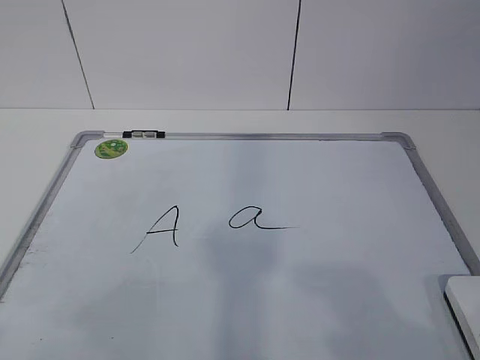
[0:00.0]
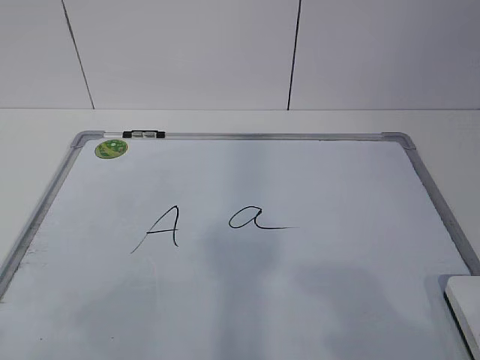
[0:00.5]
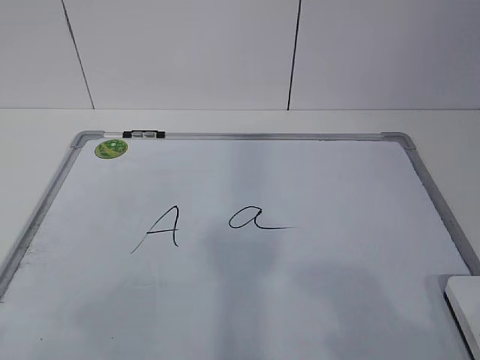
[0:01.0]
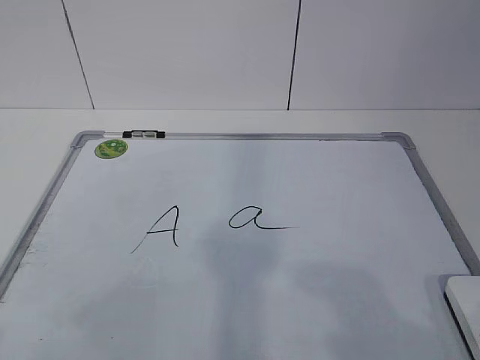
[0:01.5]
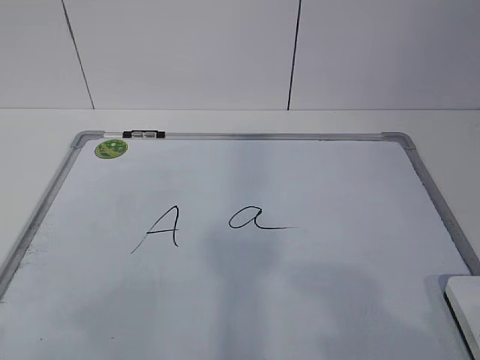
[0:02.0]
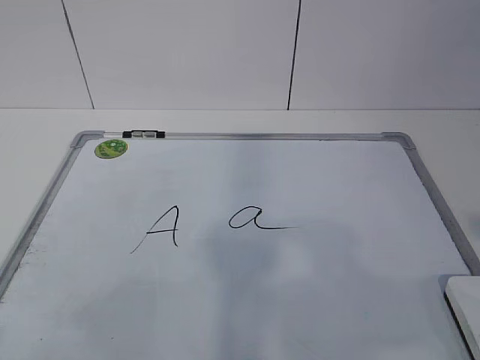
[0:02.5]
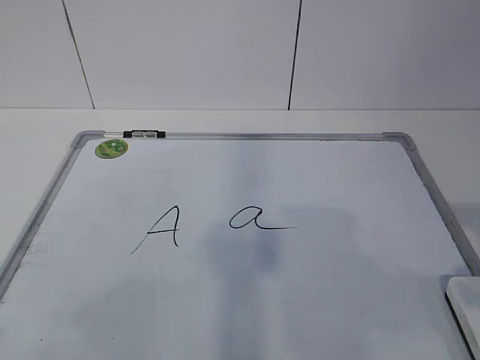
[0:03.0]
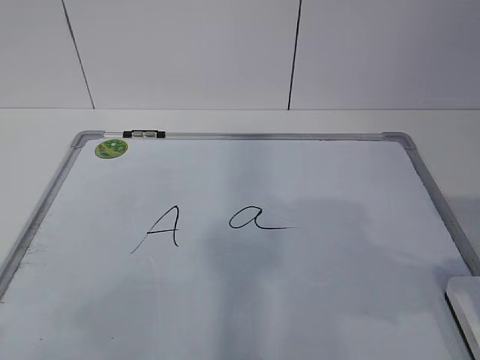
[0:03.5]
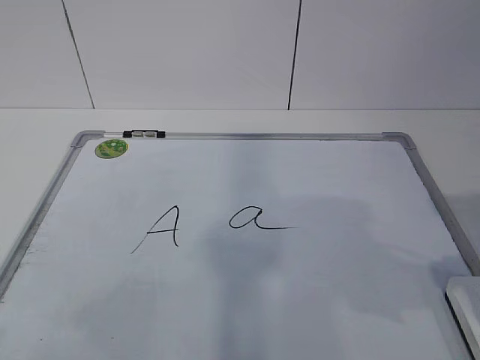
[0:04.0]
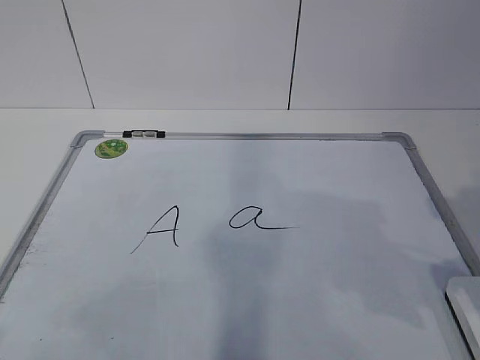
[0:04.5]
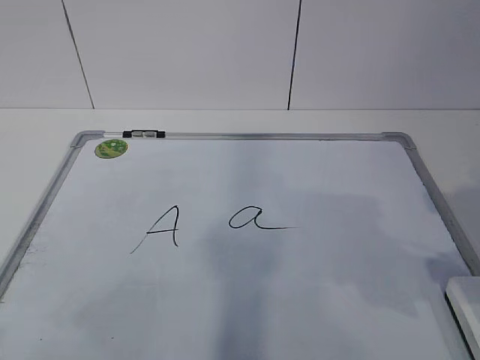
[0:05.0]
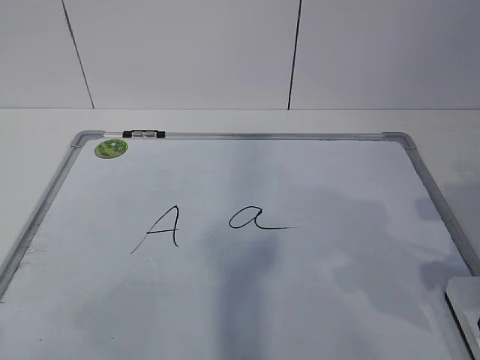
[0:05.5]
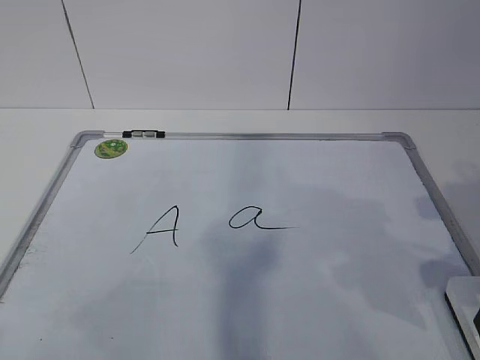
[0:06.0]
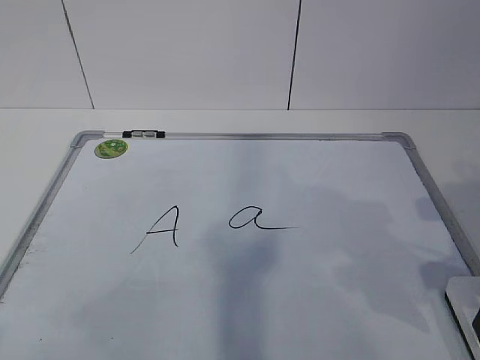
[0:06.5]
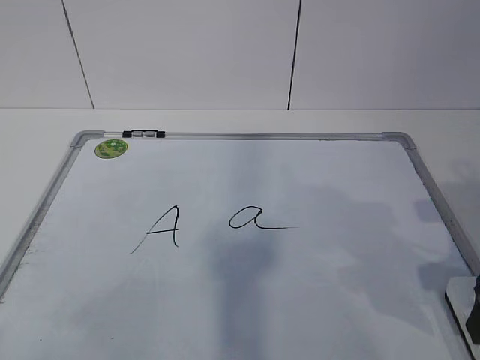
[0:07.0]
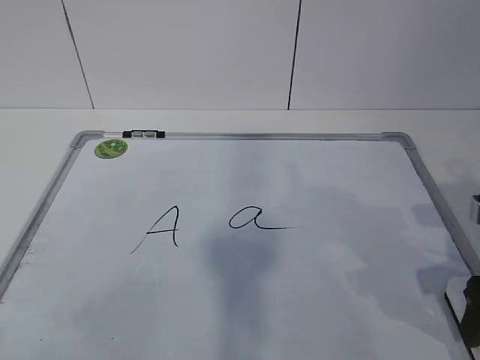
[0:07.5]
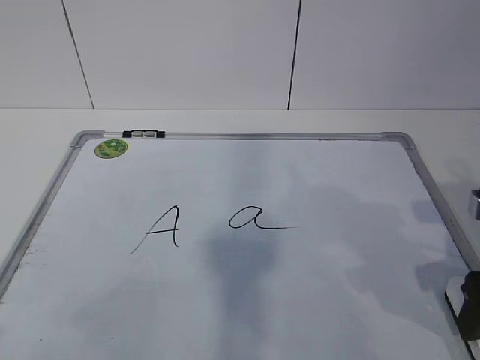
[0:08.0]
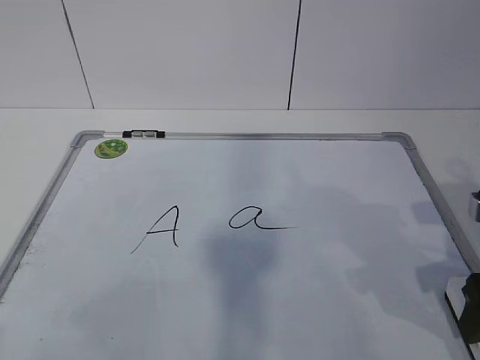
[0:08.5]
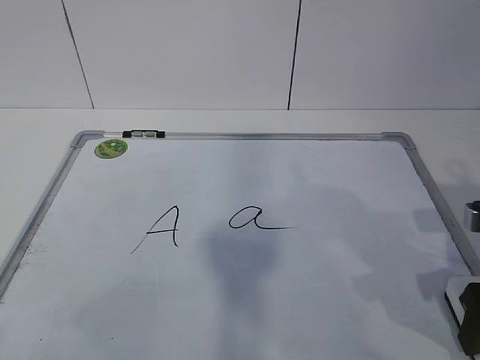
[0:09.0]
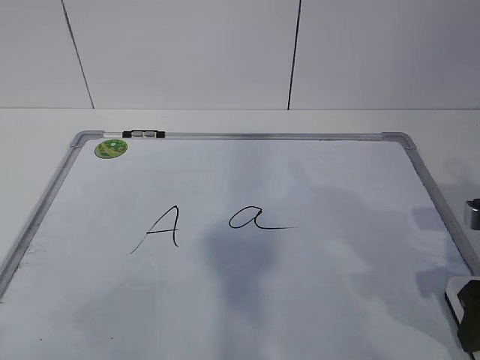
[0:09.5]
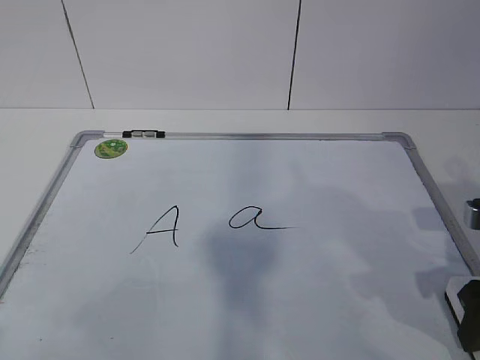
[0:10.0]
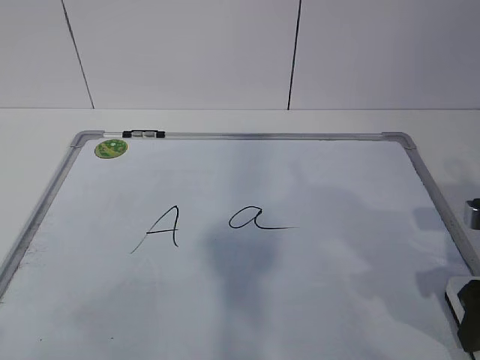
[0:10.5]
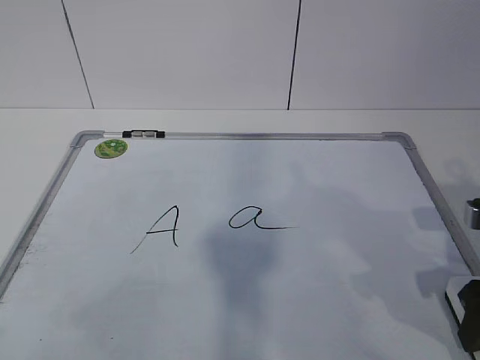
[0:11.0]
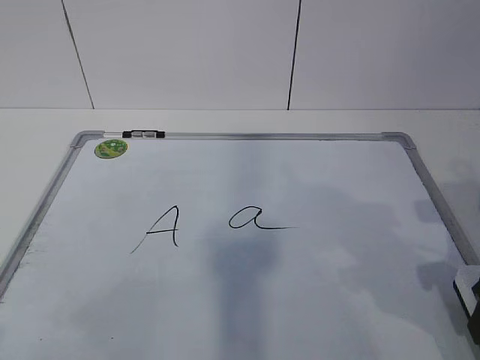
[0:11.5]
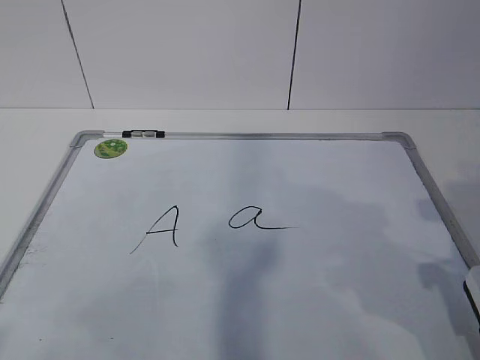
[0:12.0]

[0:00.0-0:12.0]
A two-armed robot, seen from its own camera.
Task of the whole recording: pick up the eraser on the blackboard and erase the letter "a".
0:02.0 to 0:04.0: The right gripper is displaced forward by some 15 cm.
0:10.0 to 0:12.0: The right gripper moves about 5 cm.

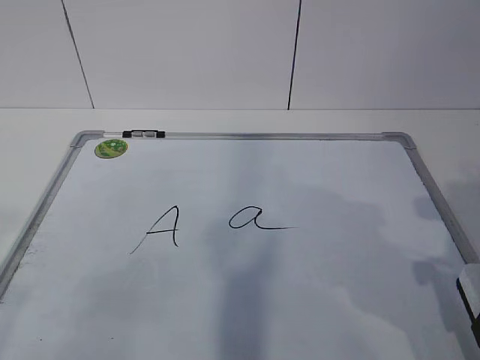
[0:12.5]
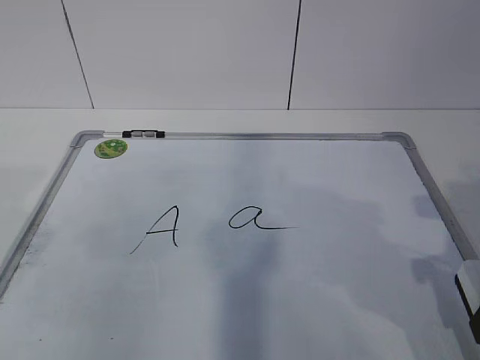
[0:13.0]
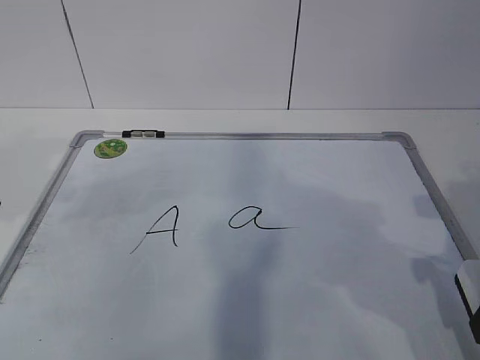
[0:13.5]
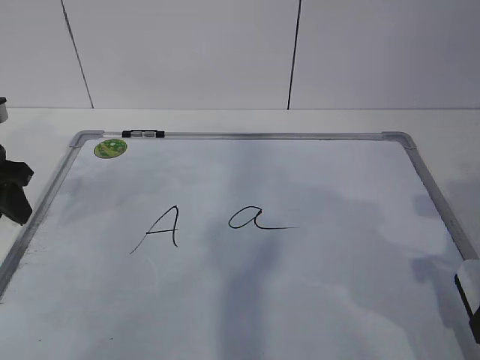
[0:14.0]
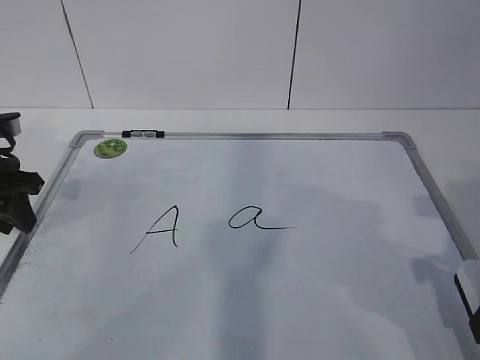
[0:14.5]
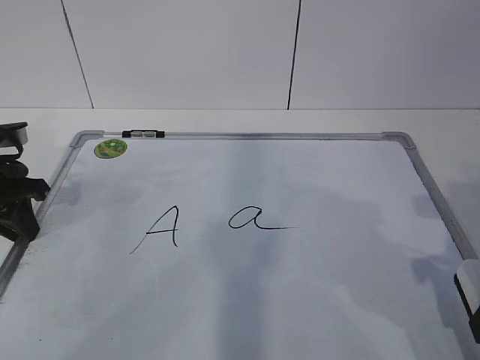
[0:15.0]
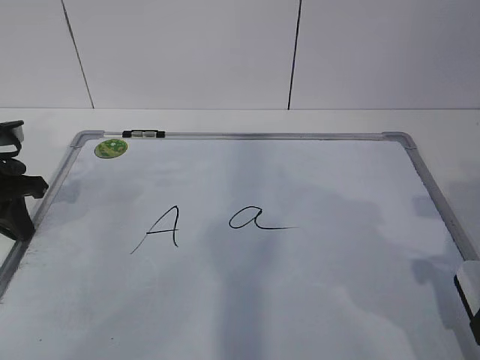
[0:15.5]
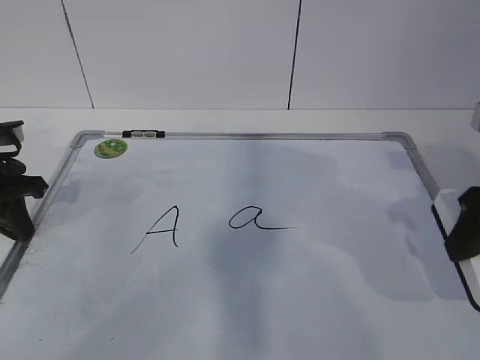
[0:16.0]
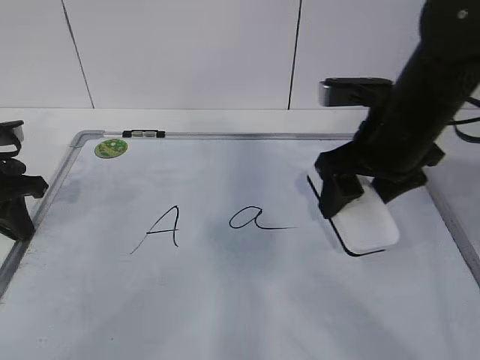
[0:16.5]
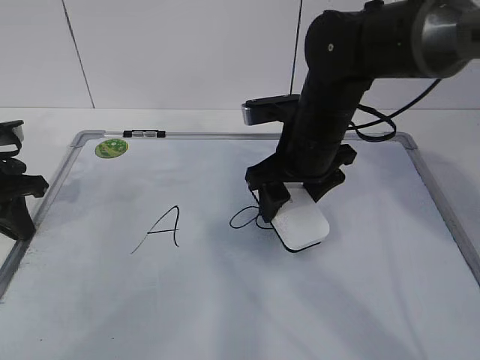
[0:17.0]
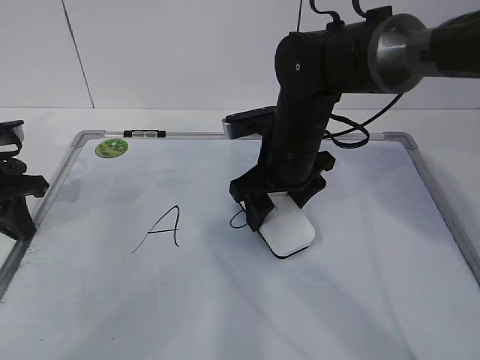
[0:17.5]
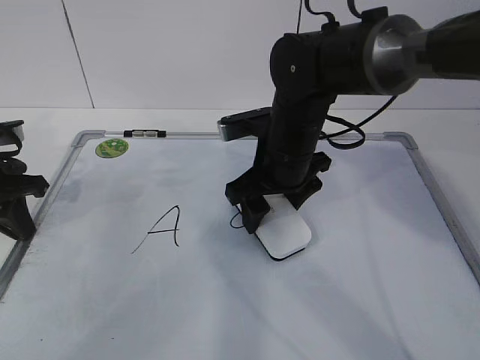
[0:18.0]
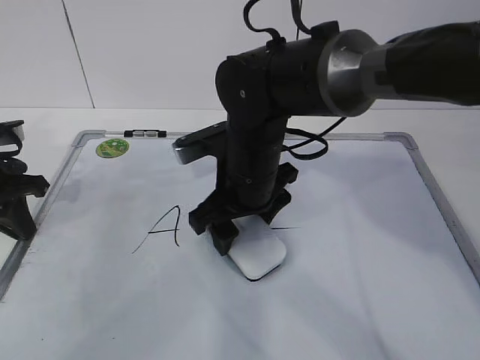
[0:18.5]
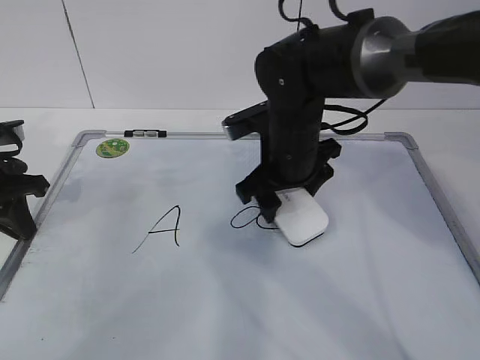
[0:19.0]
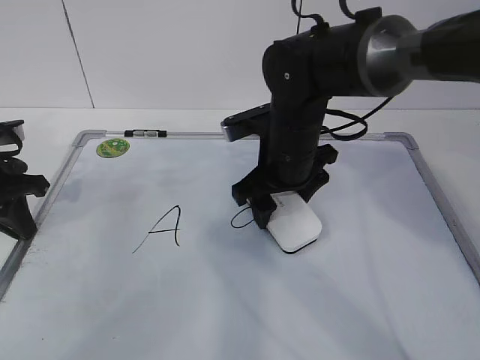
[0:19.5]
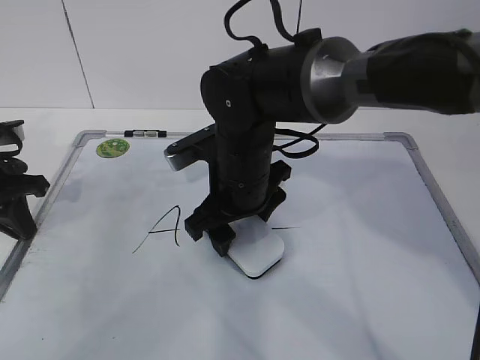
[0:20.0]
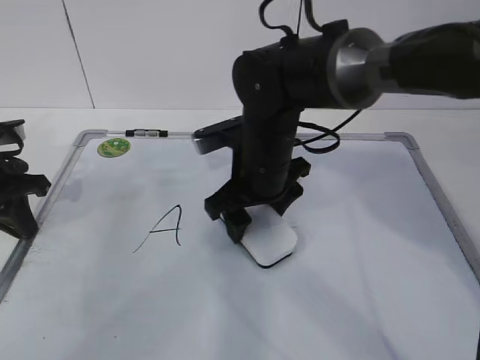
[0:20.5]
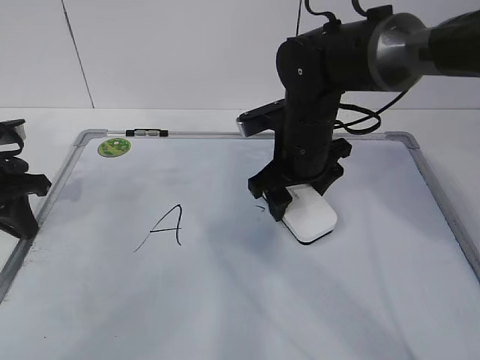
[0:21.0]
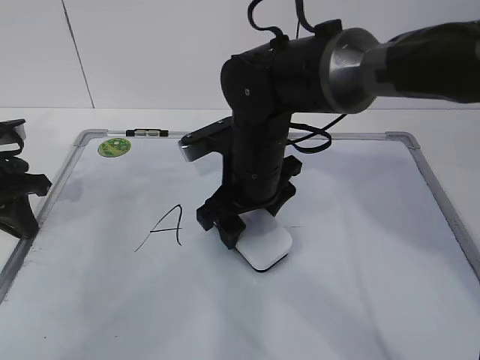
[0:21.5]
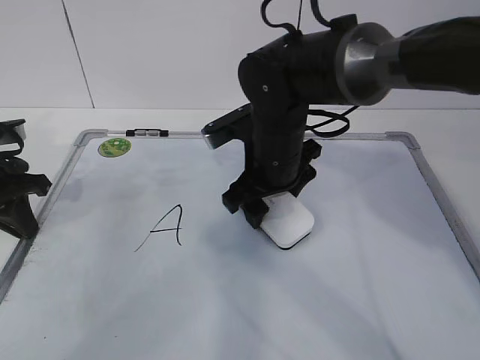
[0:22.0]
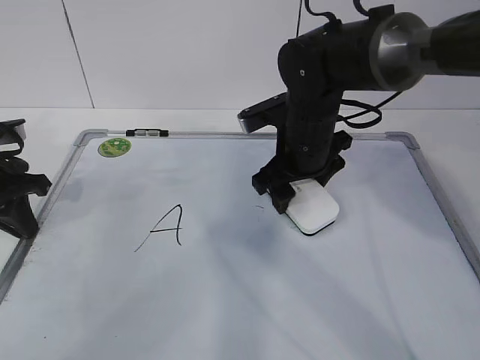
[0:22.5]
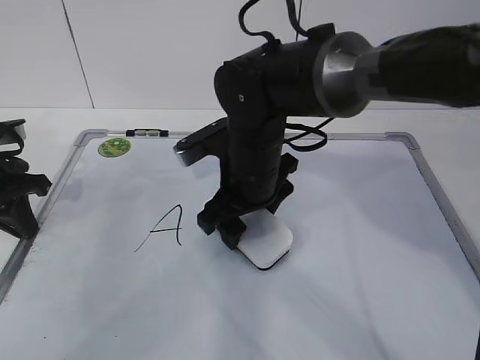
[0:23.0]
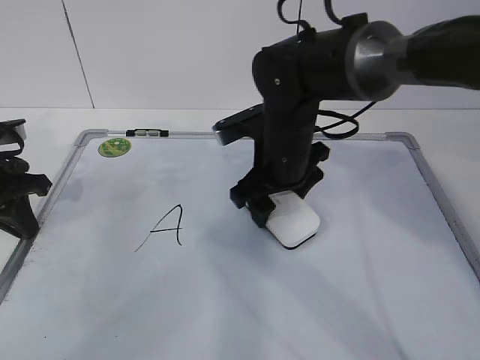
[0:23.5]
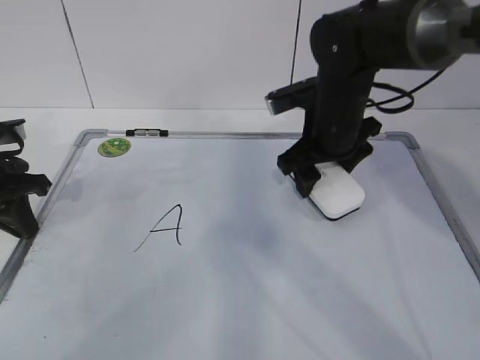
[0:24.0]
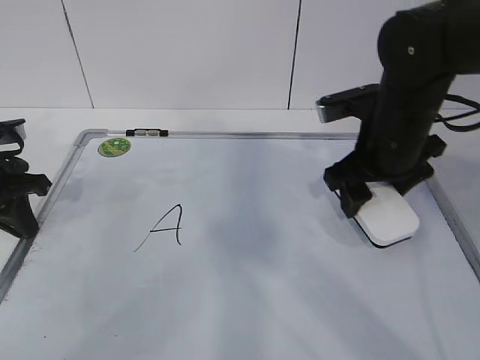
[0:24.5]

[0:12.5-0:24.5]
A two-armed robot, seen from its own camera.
Task of the whole recording: pick up the eraser on the blackboard and erase the letter "a".
Step, 0:13.0 to 0:19.5: Erase the letter a with your right hand.
Step, 0:20.0 to 0:21.5: Put down the eraser with your right hand.
0:12.5 to 0:14.5: The left gripper shifts some 30 cm forward.
0:14.5 to 0:16.5: The left gripper closes up. The right gripper is displaced forward and to the left by roughly 15 cm.
0:16.5 to 0:18.5: The right gripper goes roughly 15 cm to the left and downward.
0:20.5 to 0:22.5: The right gripper swings left and right, some 5 cm each way, with 2 reversals.
0:22.5 to 0:24.5: The right gripper moves to the right, approximately 10 cm.

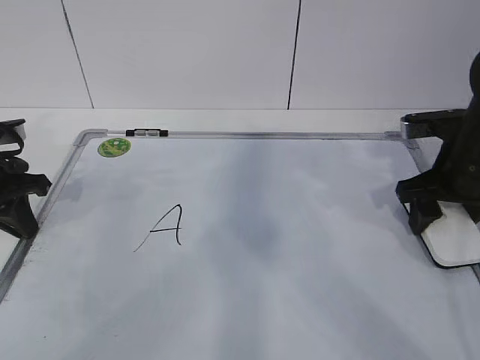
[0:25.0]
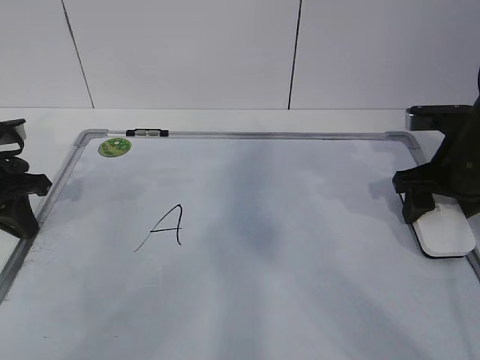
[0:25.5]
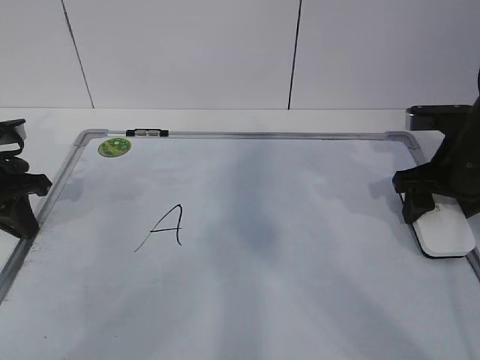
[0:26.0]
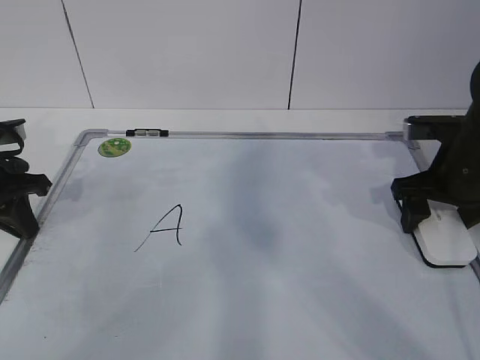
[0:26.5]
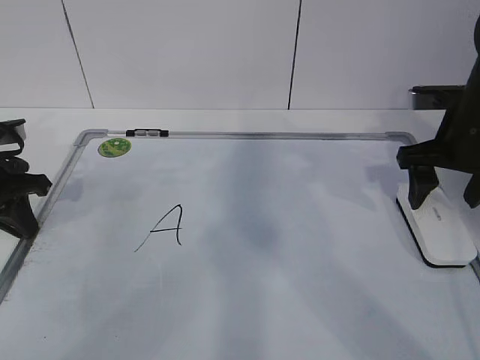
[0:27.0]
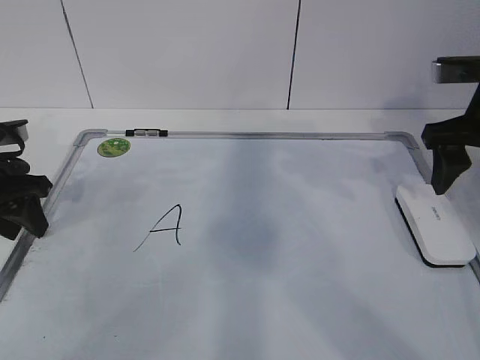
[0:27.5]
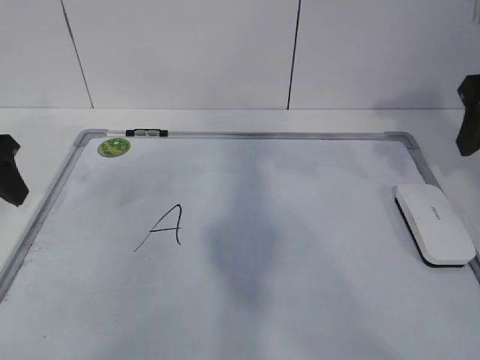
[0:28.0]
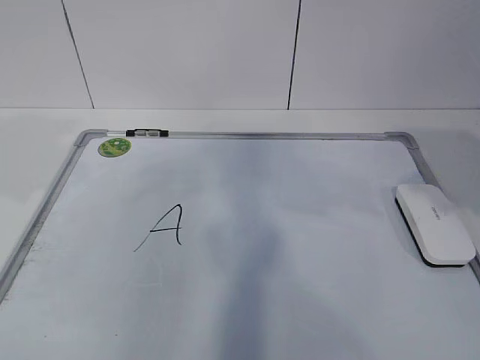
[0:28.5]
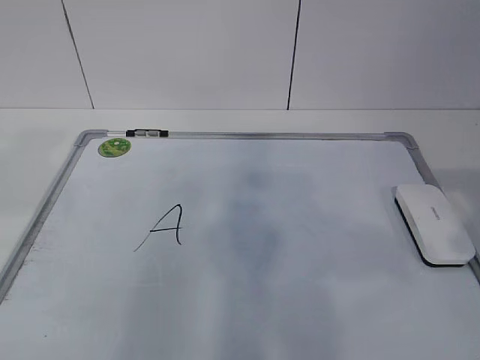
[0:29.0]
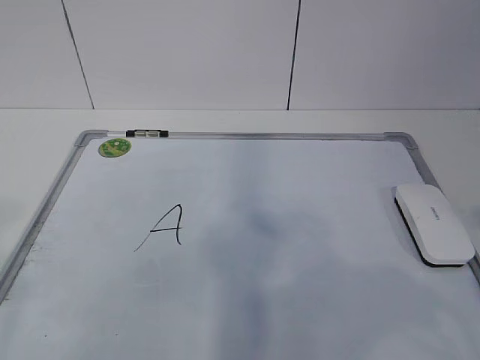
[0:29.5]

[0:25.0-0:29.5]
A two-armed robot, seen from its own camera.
Task of the whole recording: pick up the eraser on the blackboard and erase the letter "a".
0:25.0 to 0:27.0: The right gripper opens.
0:27.0 to 0:29.5: The right gripper moves backward, about 35 cm, and closes. The left gripper travels backward and upward by some 35 cm, and opens its fingers.
